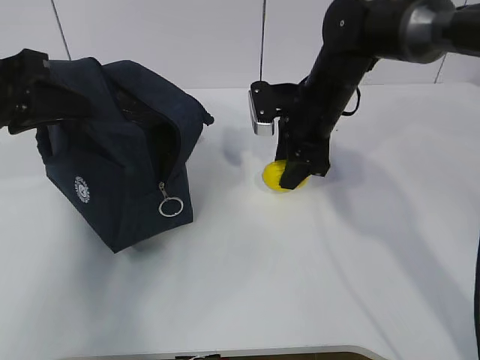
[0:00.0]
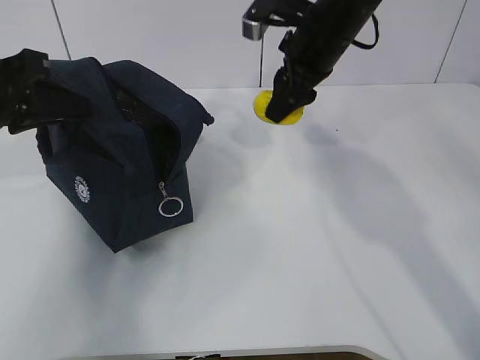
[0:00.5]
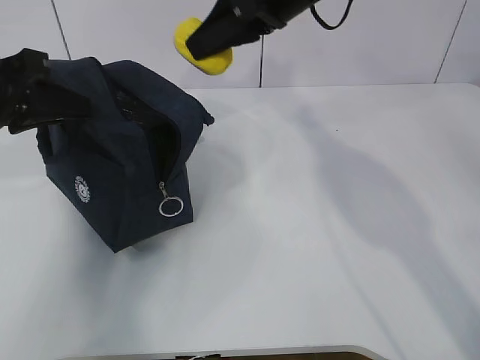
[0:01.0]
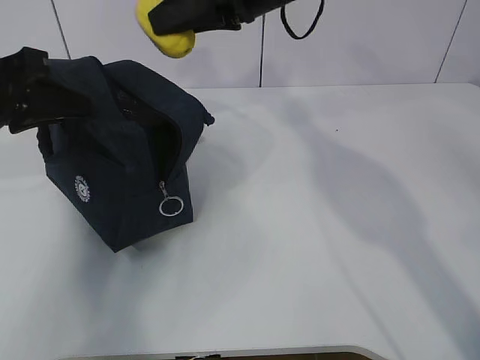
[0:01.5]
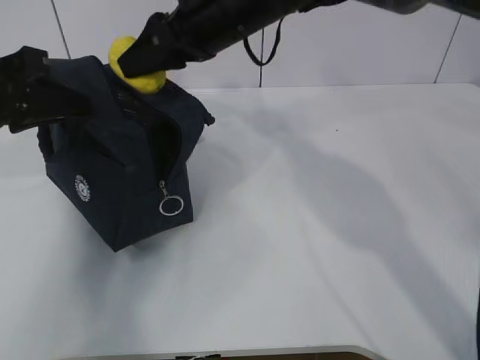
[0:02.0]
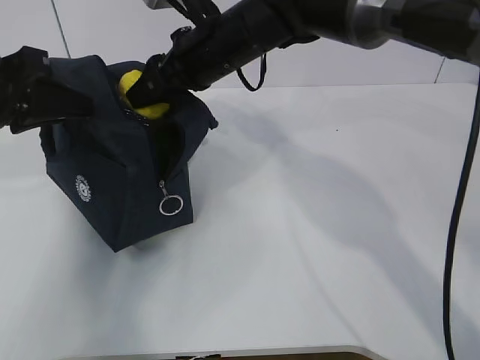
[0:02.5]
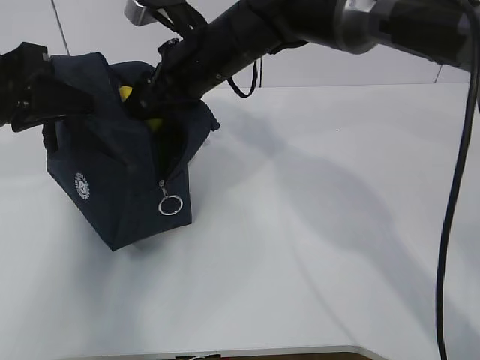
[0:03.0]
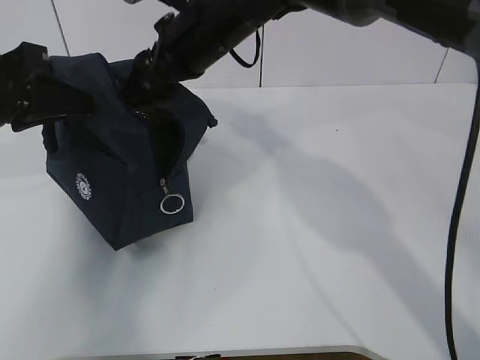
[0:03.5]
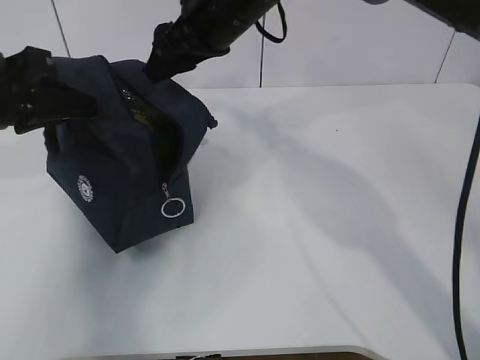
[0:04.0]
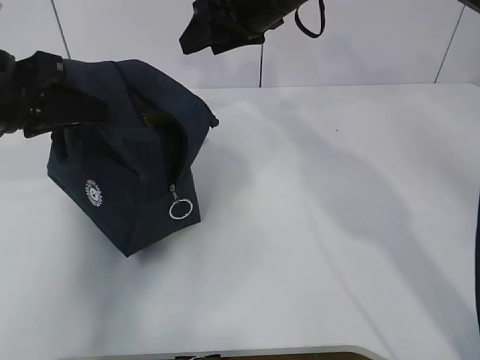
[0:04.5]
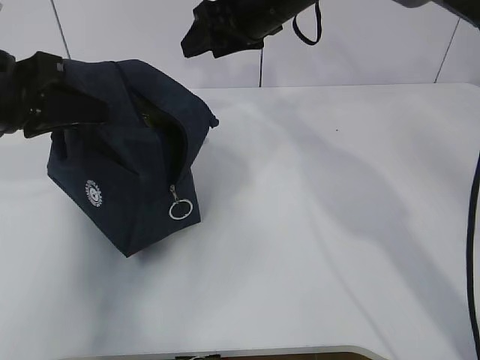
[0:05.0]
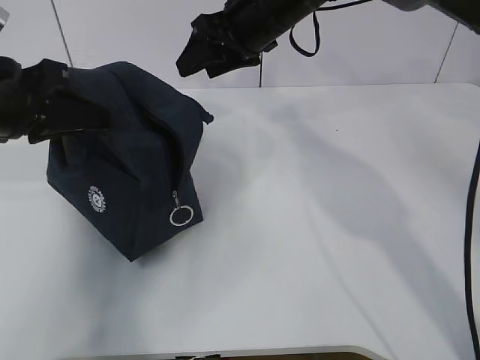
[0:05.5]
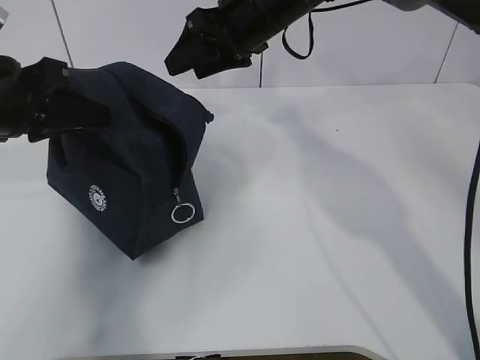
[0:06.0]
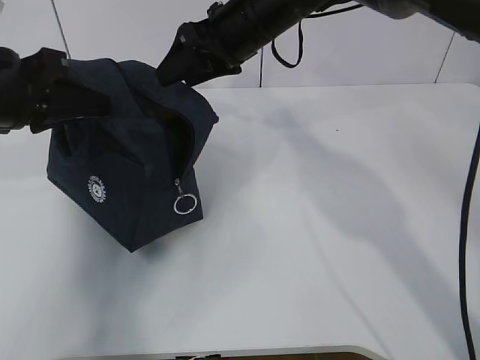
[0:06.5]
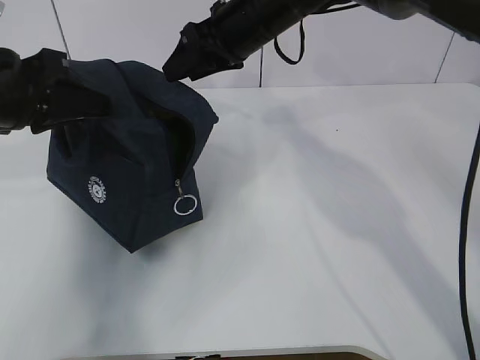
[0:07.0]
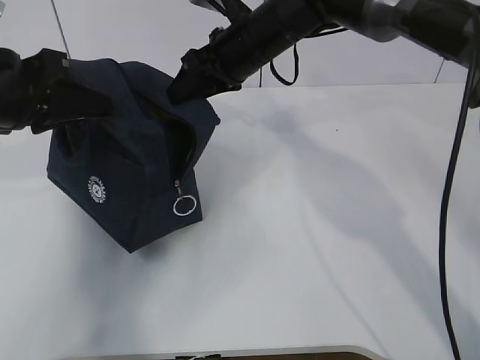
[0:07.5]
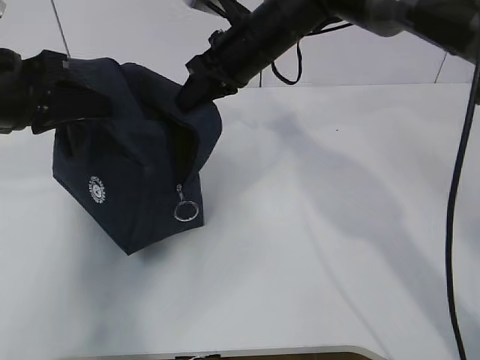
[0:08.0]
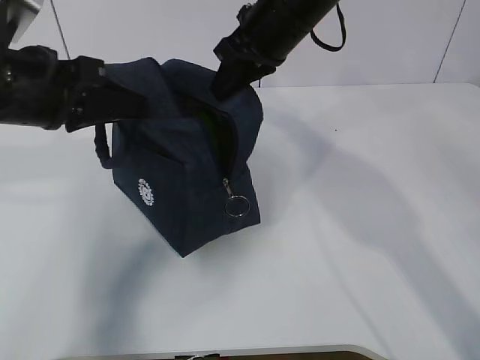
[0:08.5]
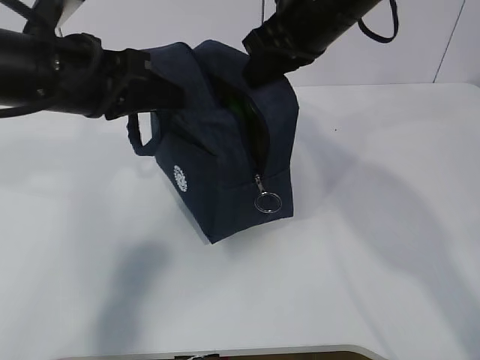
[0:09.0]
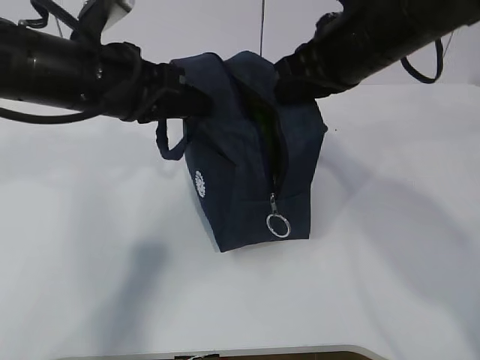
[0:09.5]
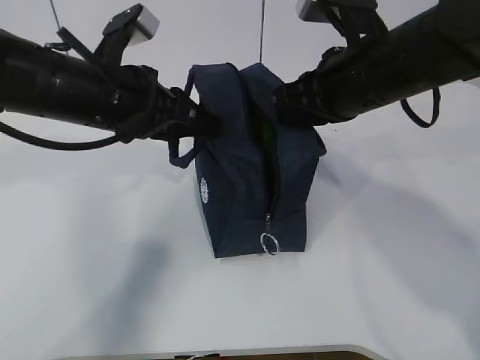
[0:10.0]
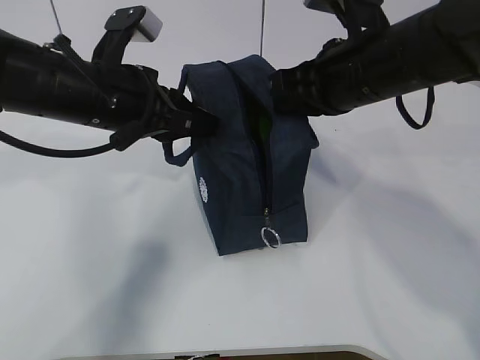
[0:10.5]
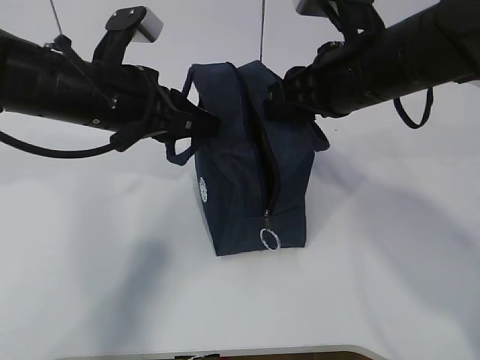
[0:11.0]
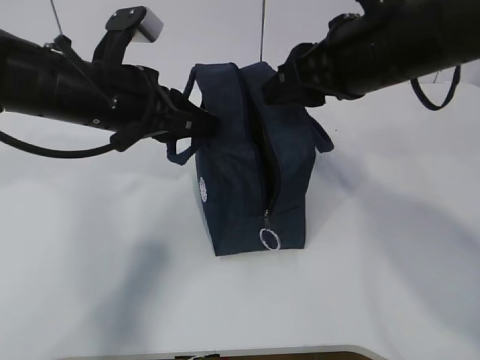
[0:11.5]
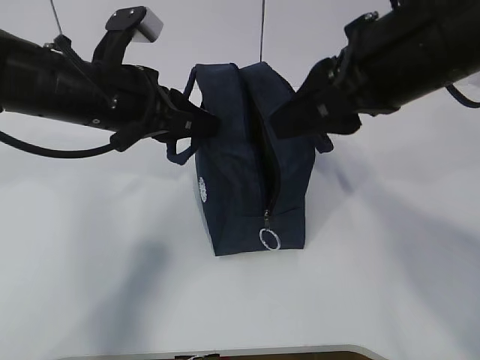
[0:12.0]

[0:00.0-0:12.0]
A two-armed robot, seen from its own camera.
Step, 0:00.5 to 0:03.0: Move the lunch bag to the right.
Step, 0:03.5 to 0:10.0: Grab the lunch bag with your left hand.
0:00.0 to 0:02.0: The right gripper travels upward and to the left by some 15 cm.
0:02.0 to 0:04.0: The grippers move only a little.
0:06.0 to 0:08.0: The right gripper closes its fingers.
0:08.0 to 0:10.0: The left gripper travels to the right by approximately 10 cm. The right gripper goes some 15 cm backward and to the right.
0:10.0 to 0:12.0: The right gripper shifts roughly 10 cm backward and upward, and opens up.

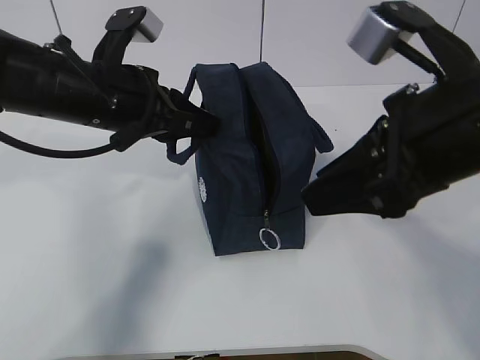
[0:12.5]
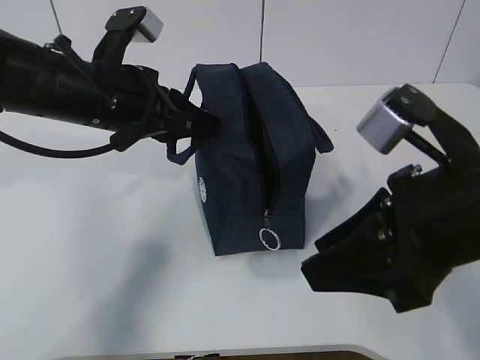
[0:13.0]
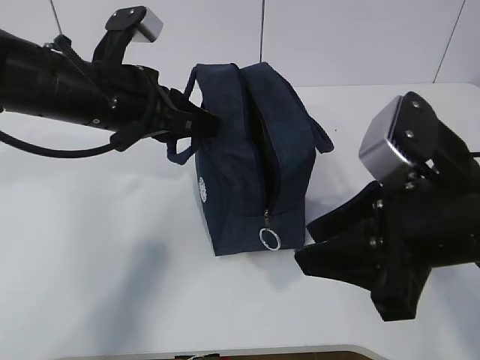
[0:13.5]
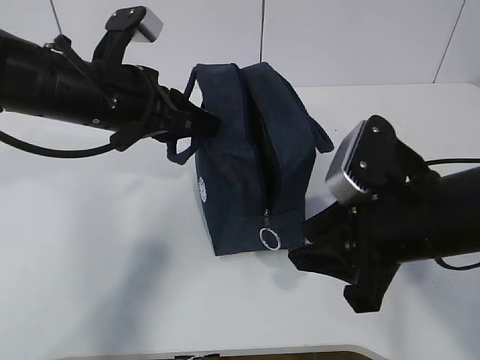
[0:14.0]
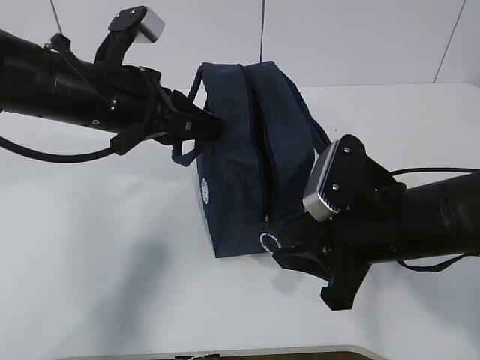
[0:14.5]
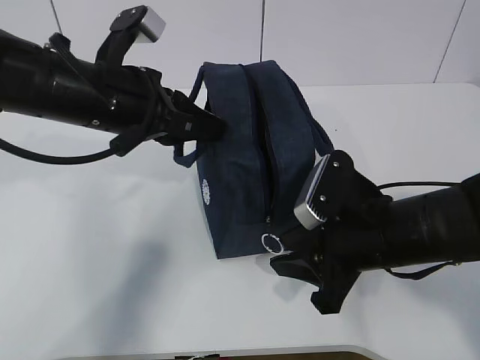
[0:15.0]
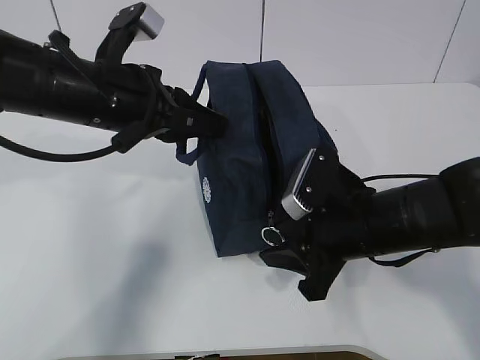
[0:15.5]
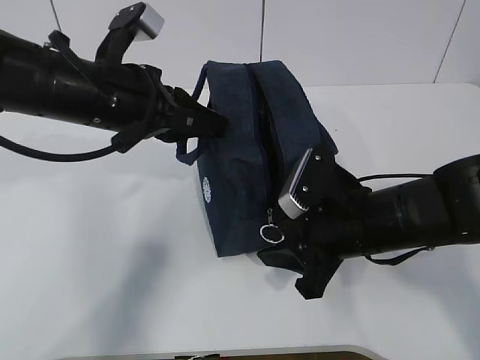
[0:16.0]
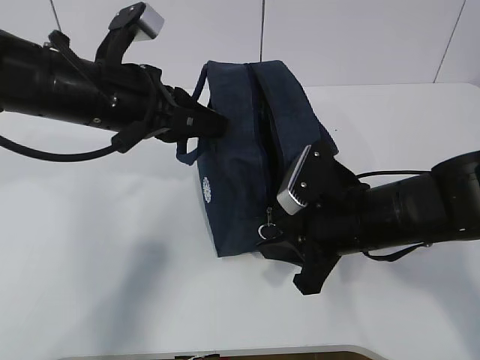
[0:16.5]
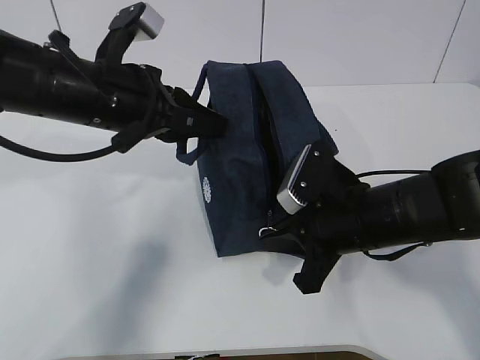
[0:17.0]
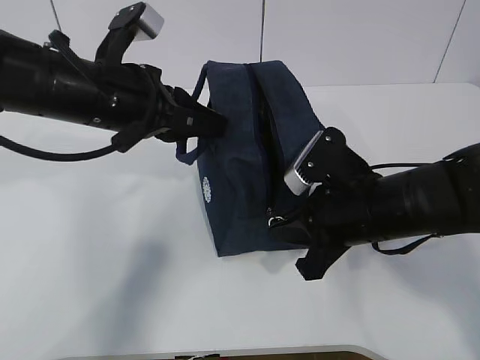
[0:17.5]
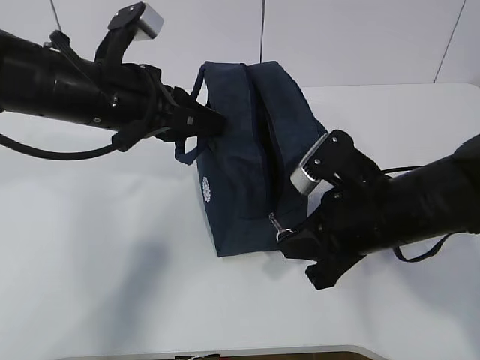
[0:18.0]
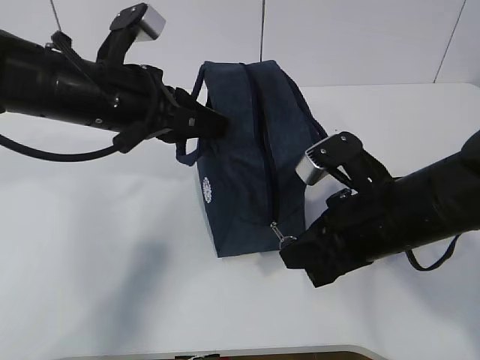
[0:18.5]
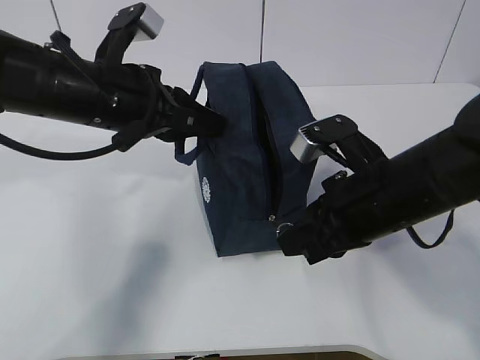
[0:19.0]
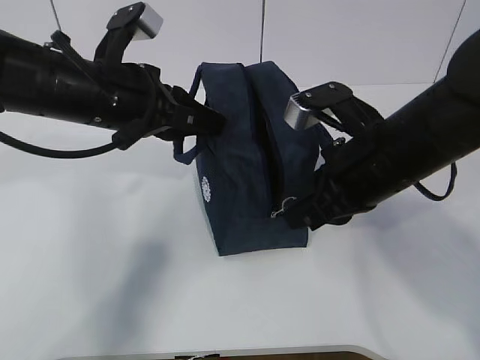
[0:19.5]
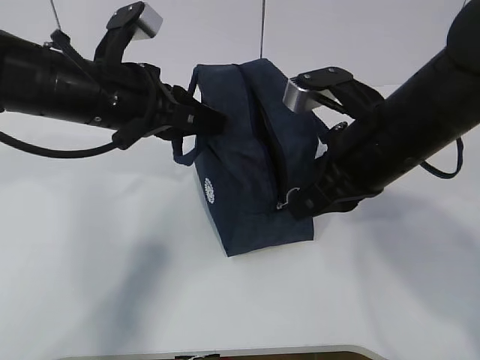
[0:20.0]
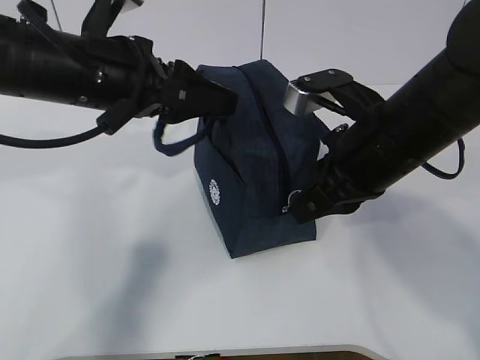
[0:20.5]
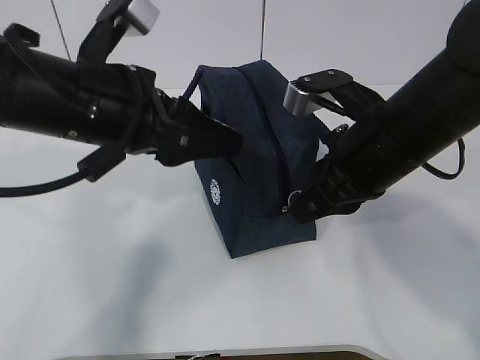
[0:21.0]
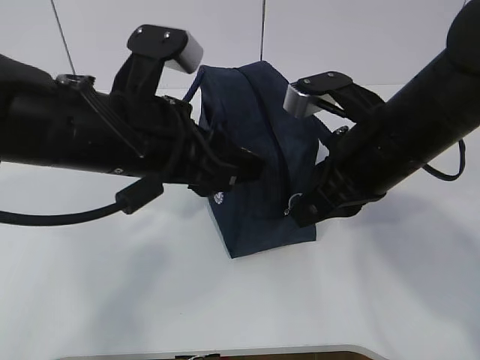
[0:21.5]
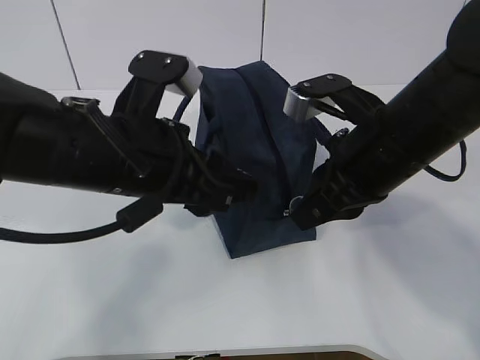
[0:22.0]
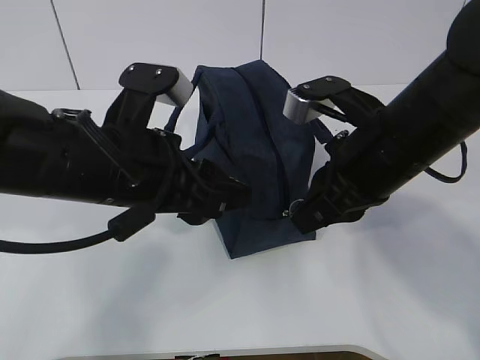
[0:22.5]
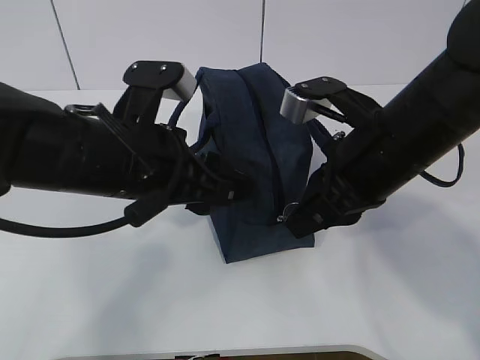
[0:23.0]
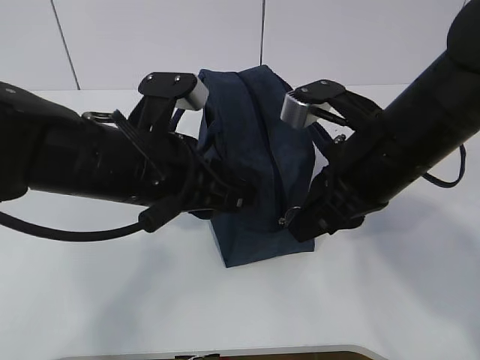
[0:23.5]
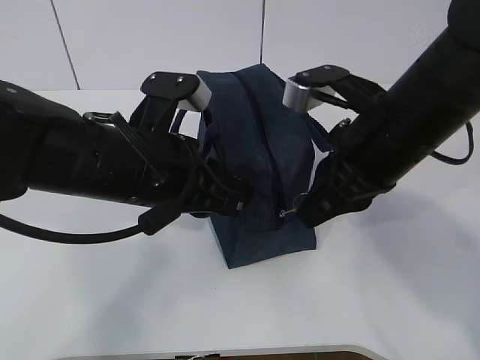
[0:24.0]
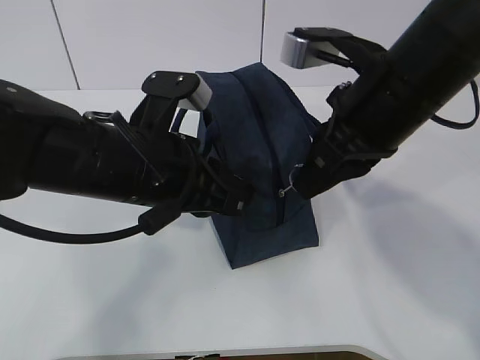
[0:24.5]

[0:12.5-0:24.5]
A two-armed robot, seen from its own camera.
0:12.5 to 0:14.5: The right gripper moves downward, some 15 cm.
0:14.5 to 0:16.5: The grippers stay close to where they were, moving slightly.
0:16.5 to 0:18.5: The right gripper closes.
0:18.5 to 0:20.5: The left gripper opens up, while the right gripper shifts approximately 5 cm upward.
0:20.5 to 0:22.5: The left gripper travels backward by approximately 5 cm.
0:22.5 to 0:24.5: The left gripper closes up.

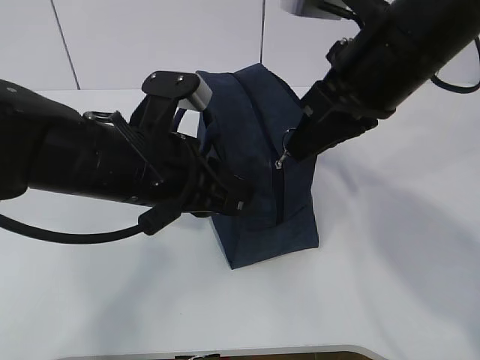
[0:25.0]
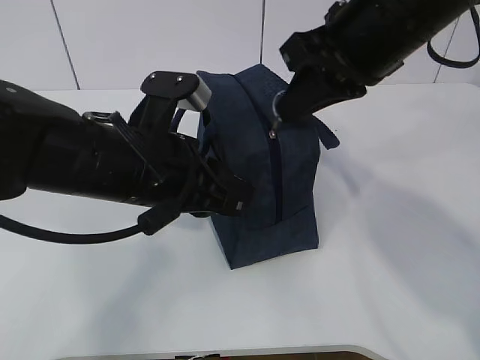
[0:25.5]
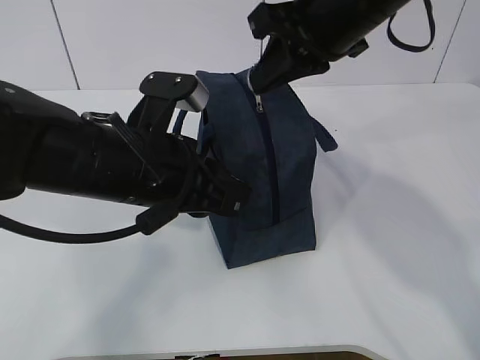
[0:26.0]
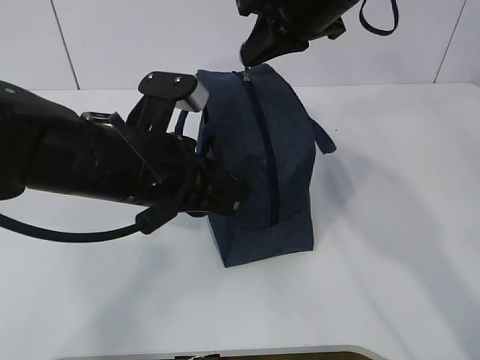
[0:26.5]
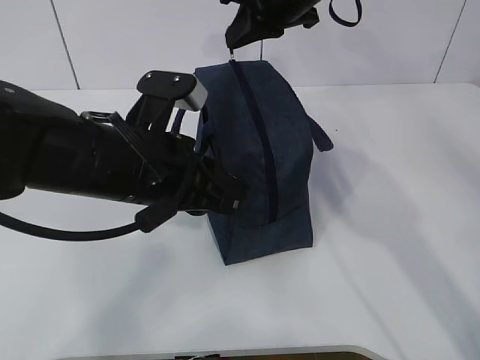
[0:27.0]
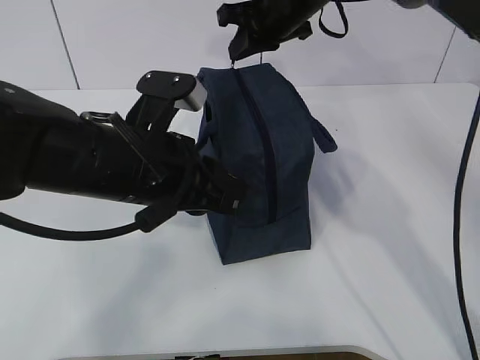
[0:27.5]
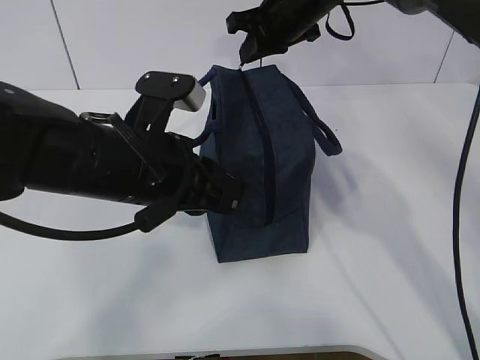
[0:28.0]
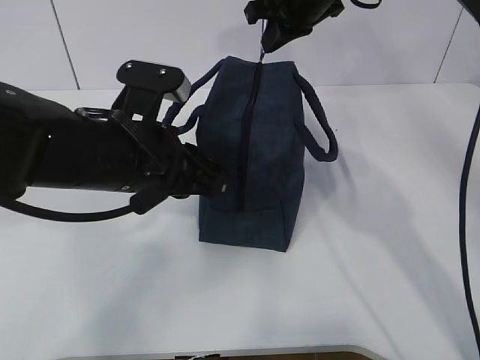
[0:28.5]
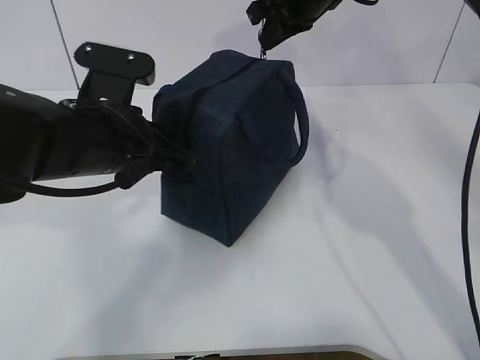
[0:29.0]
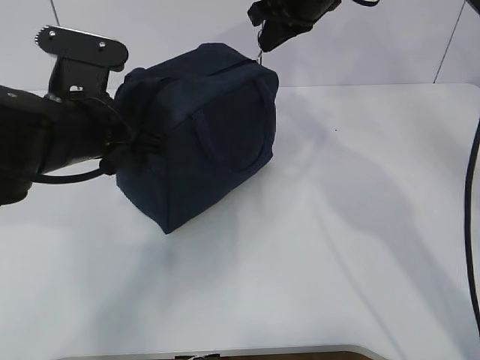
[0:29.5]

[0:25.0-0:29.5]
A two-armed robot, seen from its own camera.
Step, 0:25.0 to 0:28.5: Pull the zipper with your right hand.
0:25.0 to 0:27.0: The right gripper goes about 15 cm forward.
0:27.0 to 0:29.5: The left gripper is displaced to the left by approximately 5 cm.
